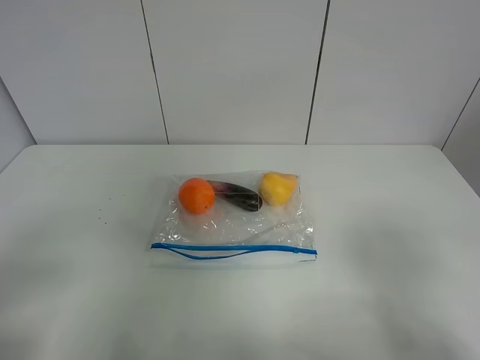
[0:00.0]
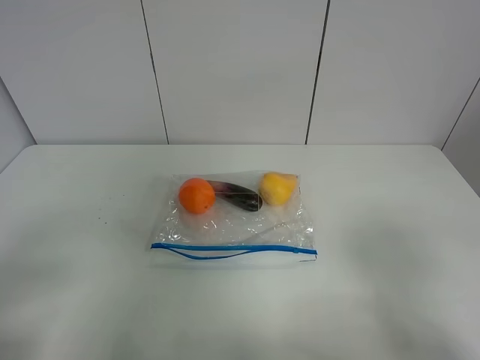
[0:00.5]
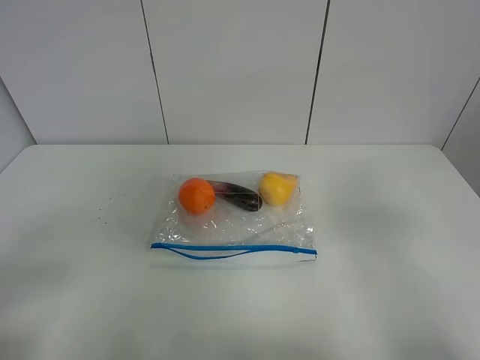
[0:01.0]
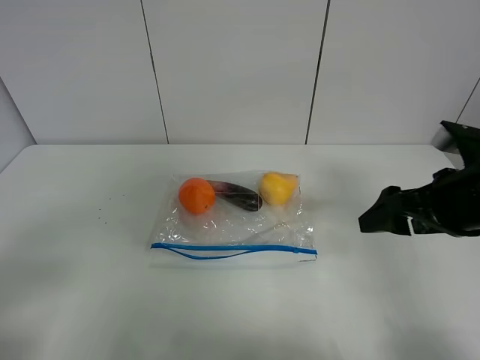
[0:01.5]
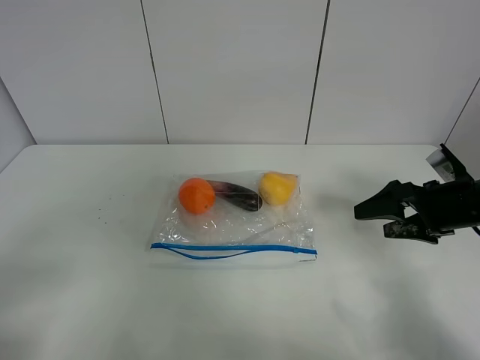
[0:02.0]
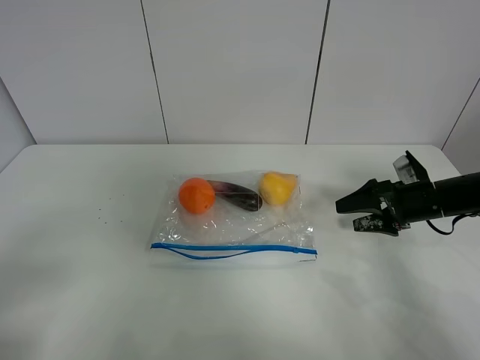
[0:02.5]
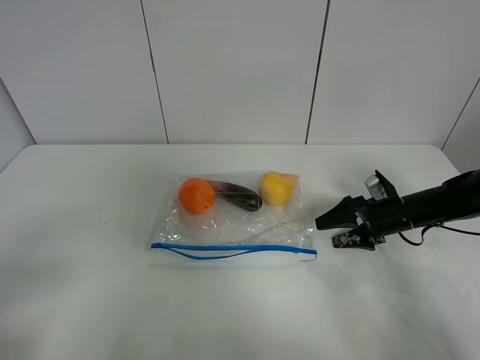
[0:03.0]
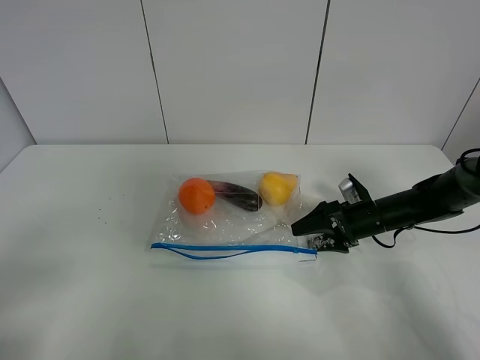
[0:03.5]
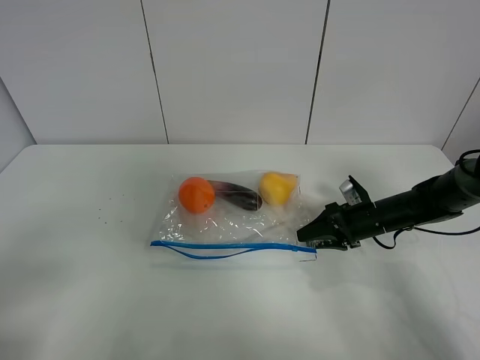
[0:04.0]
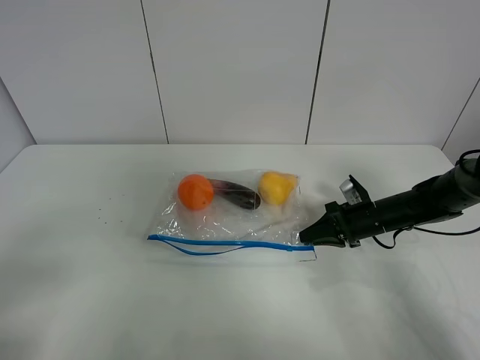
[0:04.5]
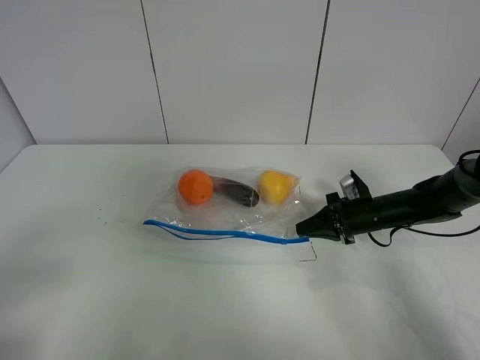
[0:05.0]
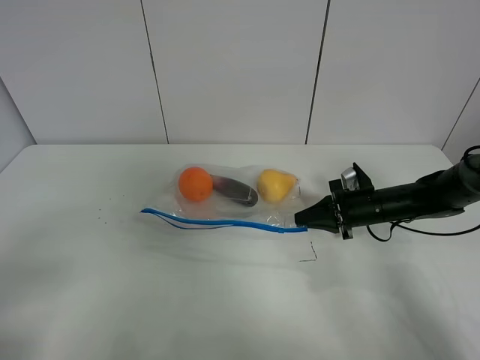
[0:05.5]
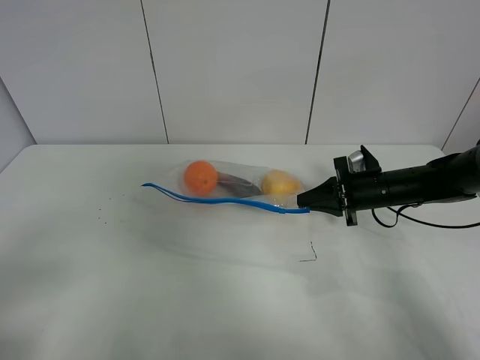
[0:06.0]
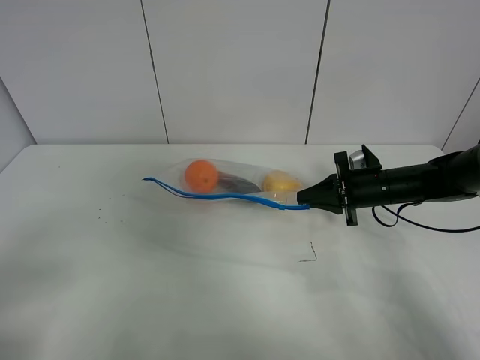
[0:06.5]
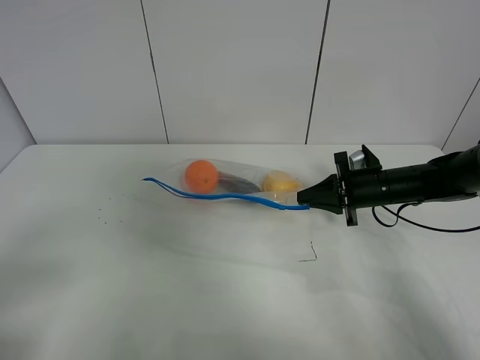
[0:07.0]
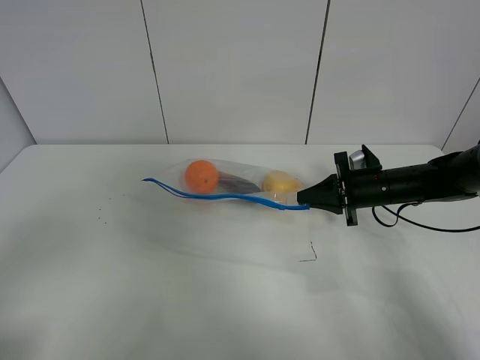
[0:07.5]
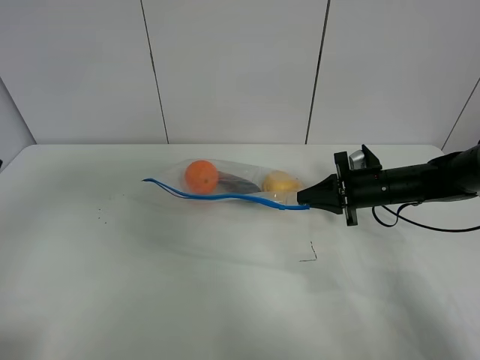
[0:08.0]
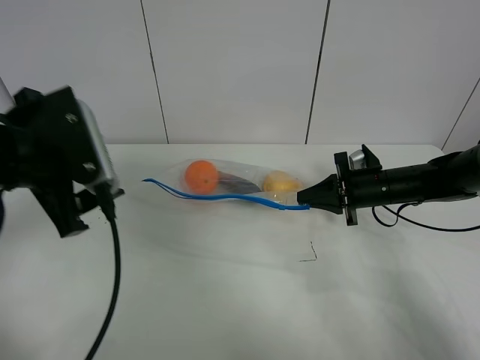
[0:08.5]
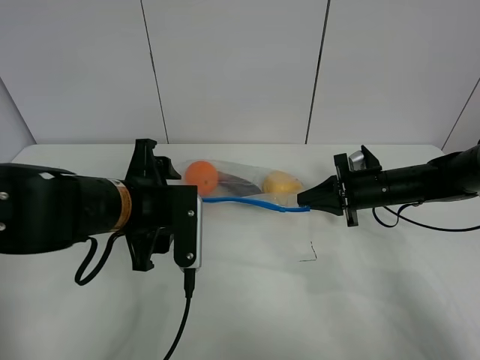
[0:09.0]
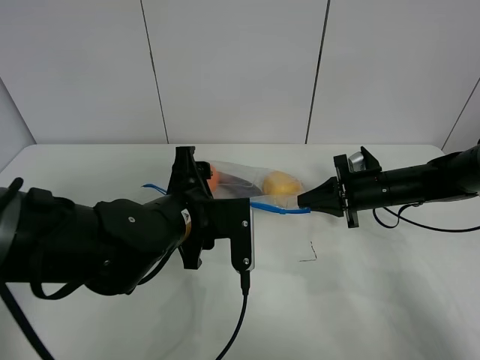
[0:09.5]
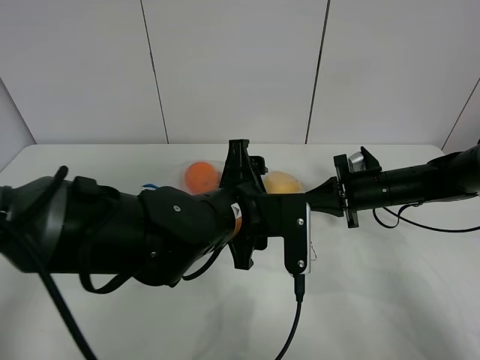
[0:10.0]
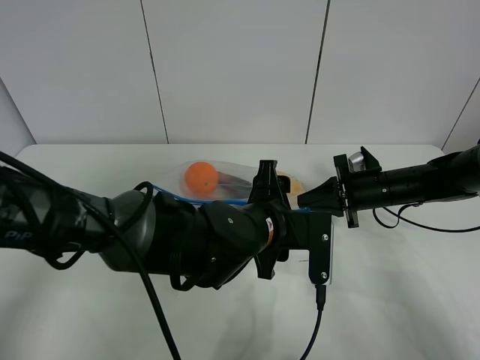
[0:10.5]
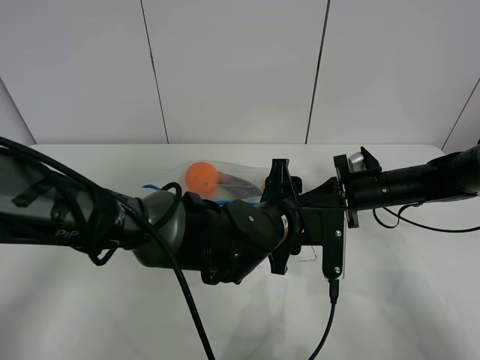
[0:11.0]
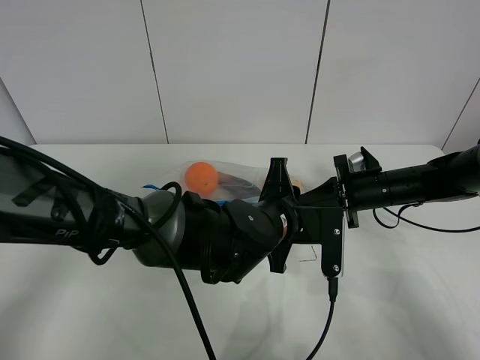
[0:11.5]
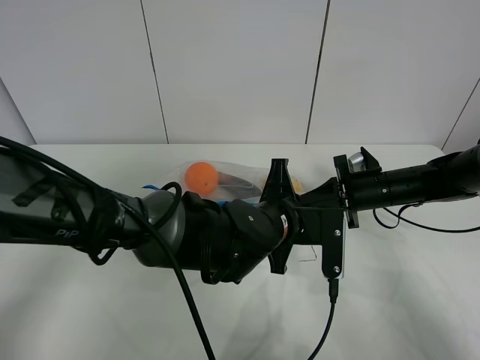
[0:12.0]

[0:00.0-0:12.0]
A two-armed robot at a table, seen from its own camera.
Step, 0:00.0 to 0:04.5: Grasp the fruit bag with right gripper.
Step, 0:05.0 to 0:06.0: Lift the fruit bag with your right gripper.
0:00.0 to 0:02.0: The right gripper goes roughly 30 cm forward and downward.
0:02.0 to 0:04.0: The right gripper shifts roughly 15 cm downward, forward and to the left, and closes its fingers.
0:04.0 to 0:06.0: The right gripper goes approximately 5 cm upward, and closes.
0:06.0 to 0:08.0: The left gripper travels forward and upward by about 15 cm.
0:08.0 to 0:10.0: The left gripper shifts roughly 35 cm to the right and downward.
0:10.0 to 0:12.0: The left gripper is displaced to the right by some 5 cm, and closes its fingers.

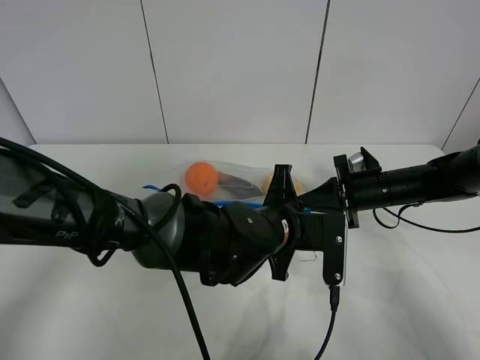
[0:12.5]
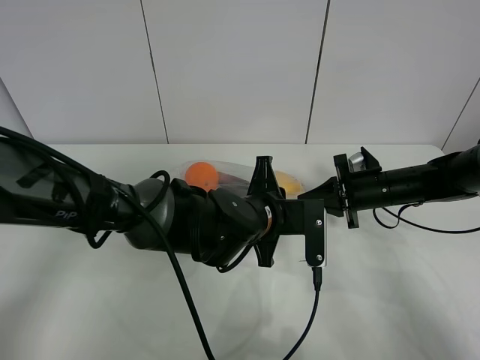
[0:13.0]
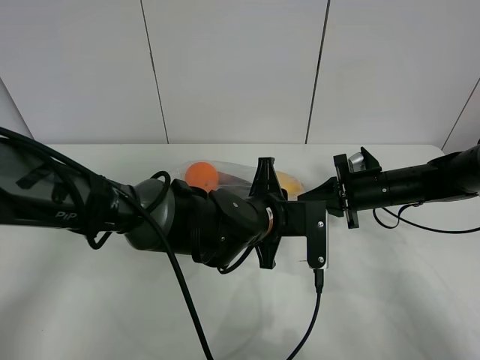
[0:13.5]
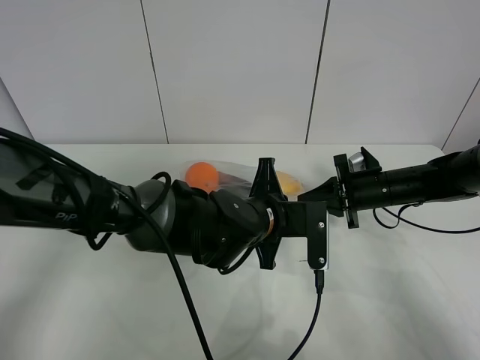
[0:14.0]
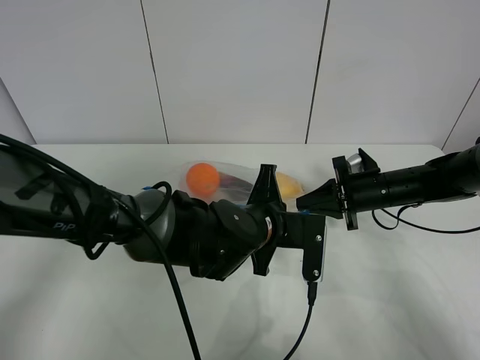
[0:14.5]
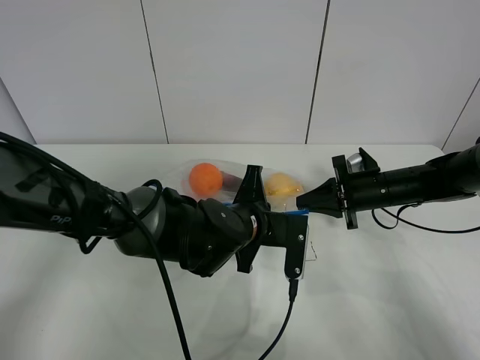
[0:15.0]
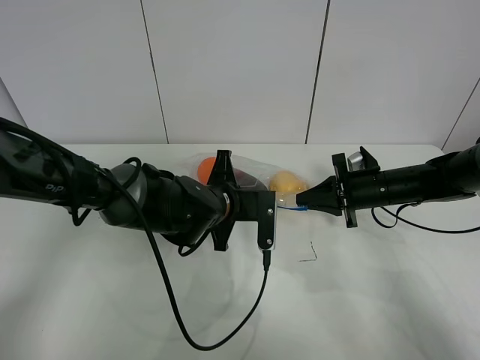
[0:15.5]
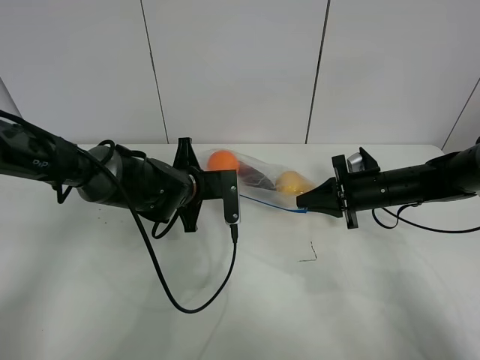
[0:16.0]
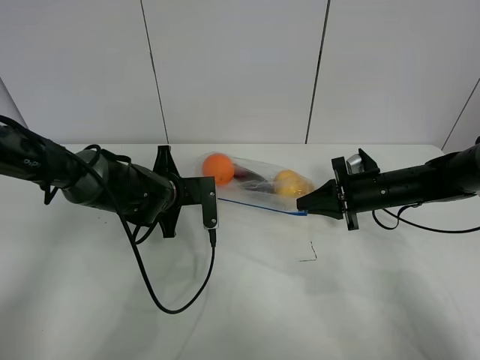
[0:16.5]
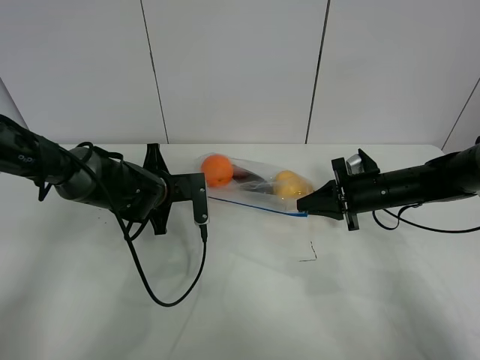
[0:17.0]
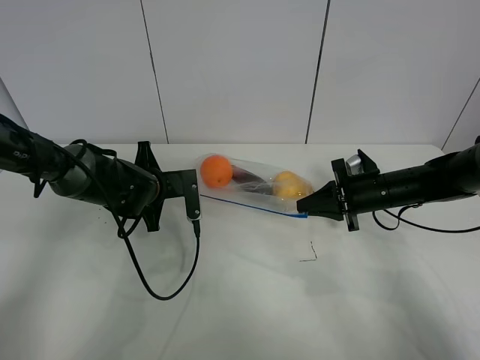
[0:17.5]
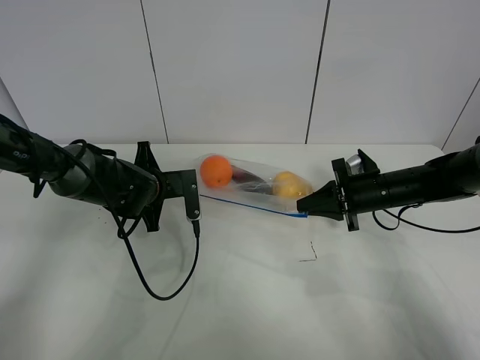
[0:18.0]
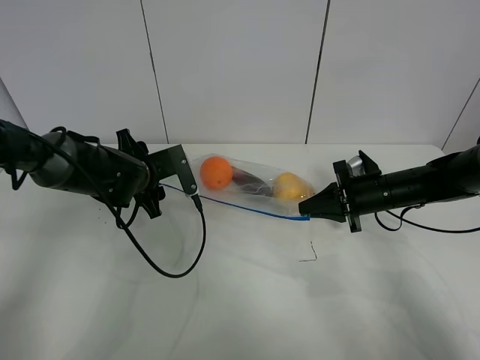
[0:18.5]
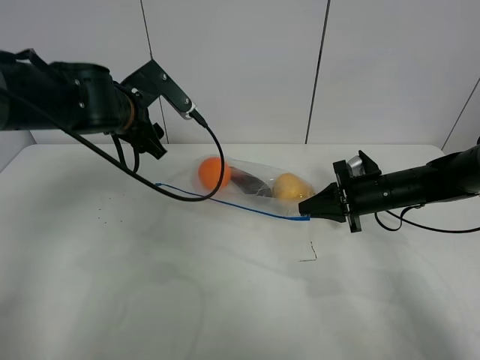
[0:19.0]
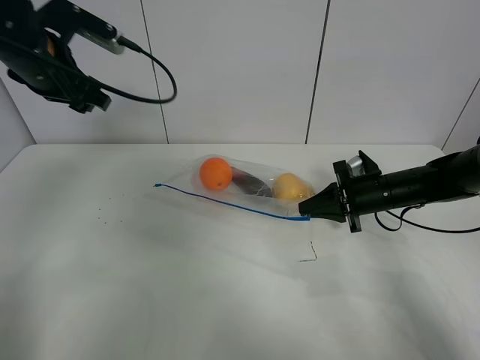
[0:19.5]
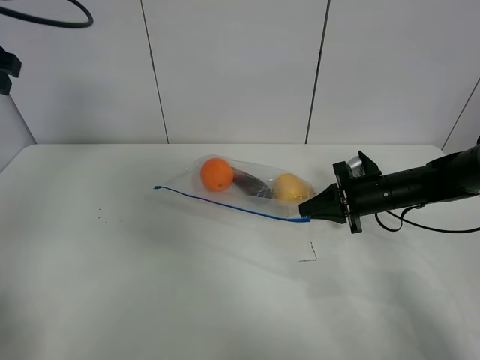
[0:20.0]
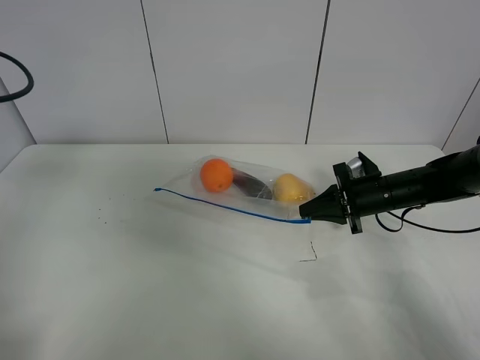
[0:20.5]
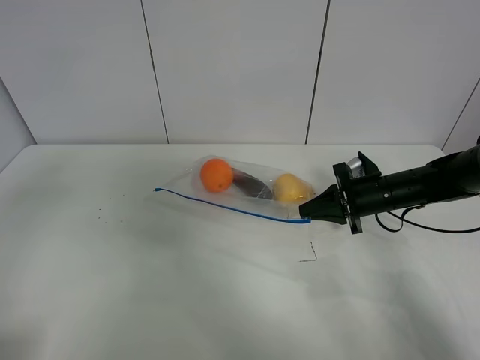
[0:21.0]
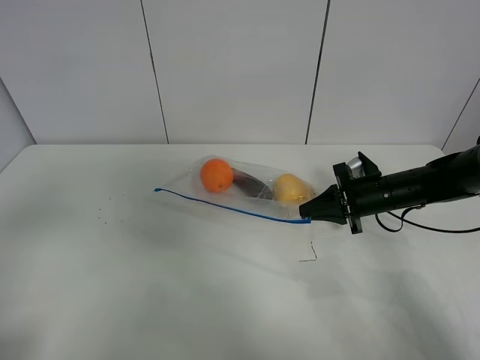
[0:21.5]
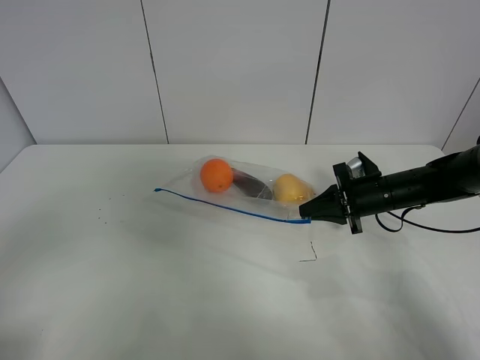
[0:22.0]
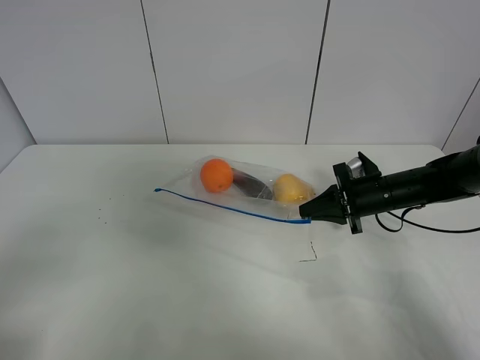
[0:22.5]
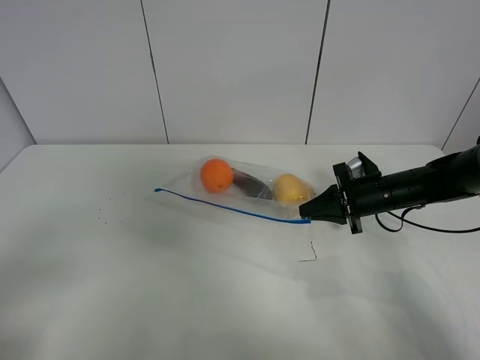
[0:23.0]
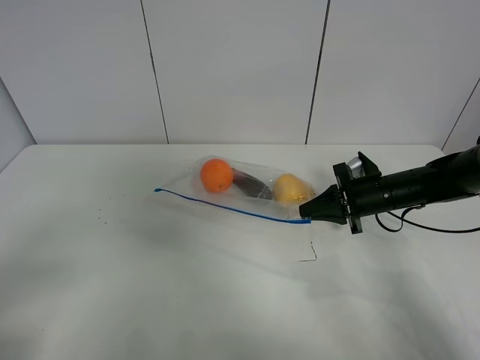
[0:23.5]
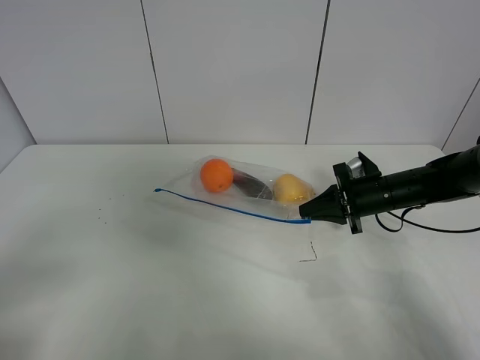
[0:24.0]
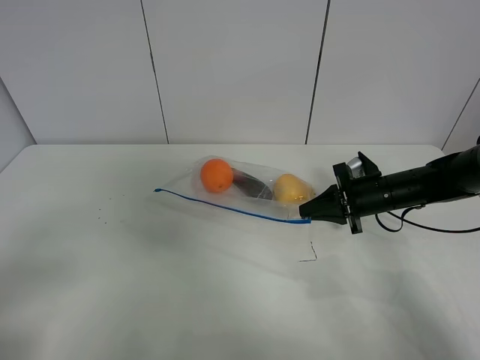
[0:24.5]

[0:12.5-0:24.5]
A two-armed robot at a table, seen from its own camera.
Step, 0:12.5 to 0:18.5: Pull the fruit bag with left gripper.
0:12.5 to 0:14.5: There are only small adjustments of the grippers.
0:14.5 to 0:16.5: The left gripper heads to the left and forward, covering approximately 15 cm.
0:16.5 to 0:18.5: The left gripper moves about 5 cm, and opens up.
0:18.5 to 0:20.5: The left gripper goes approximately 35 cm upward, to the left and backward.
0:20.5 to 0:22.5: The left gripper goes approximately 20 cm backward.

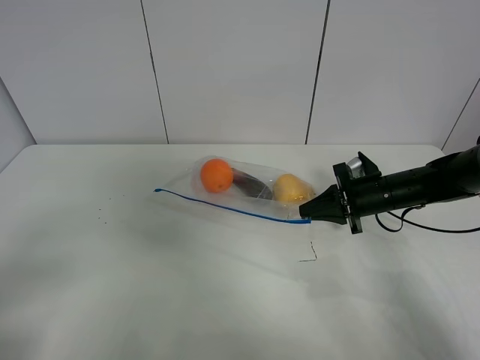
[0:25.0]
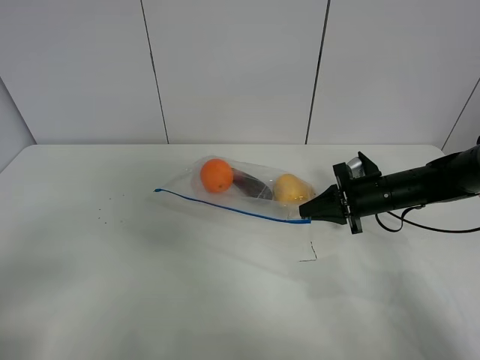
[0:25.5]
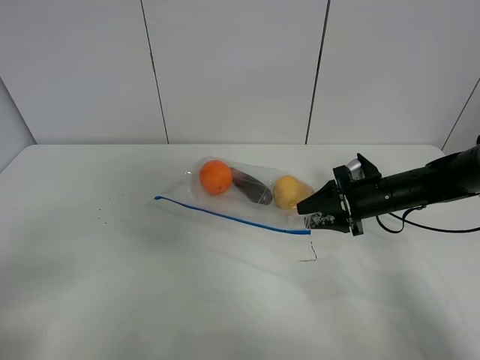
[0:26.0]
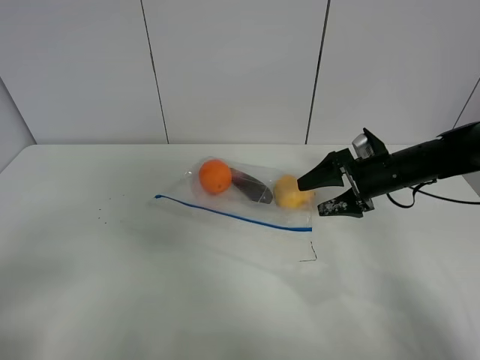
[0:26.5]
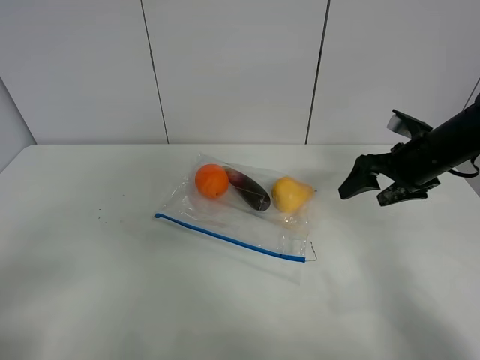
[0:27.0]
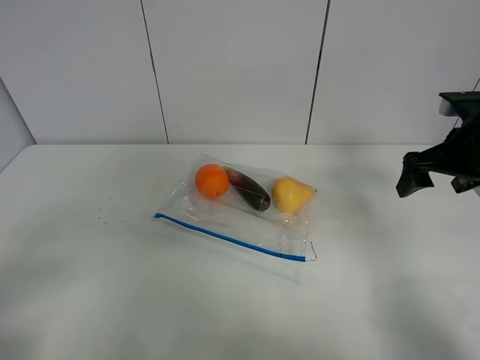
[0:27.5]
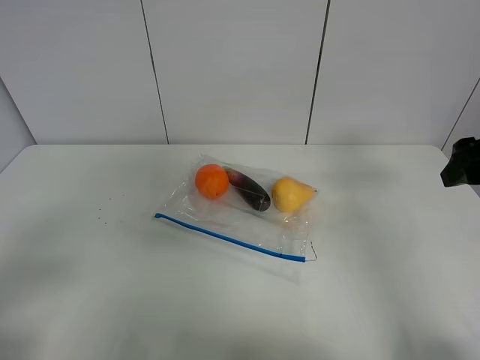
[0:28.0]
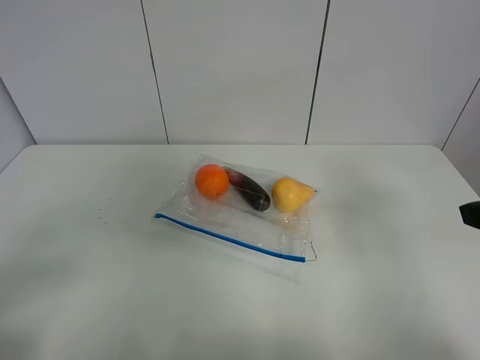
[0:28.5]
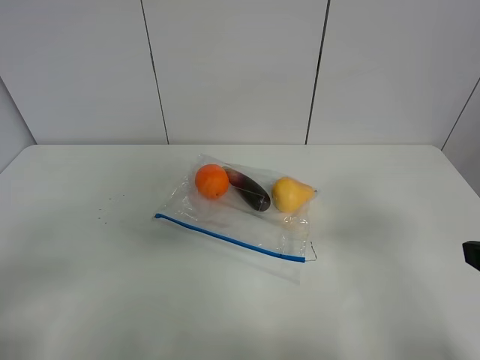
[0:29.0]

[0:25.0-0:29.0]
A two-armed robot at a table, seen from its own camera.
0:25.0 to 0:27.0: The right gripper shifts about 10 cm upward, and opens up.
0:27.0 to 0:29.0: The right gripper is displaced backward by roughly 25 cm.
